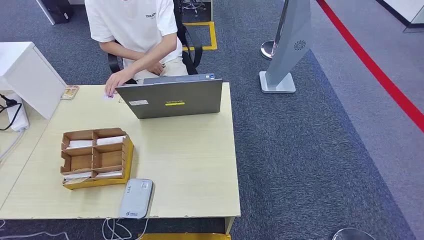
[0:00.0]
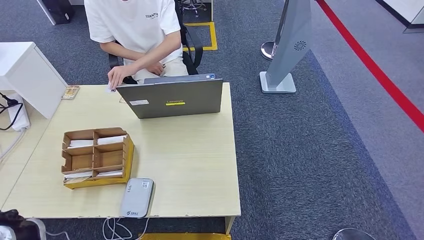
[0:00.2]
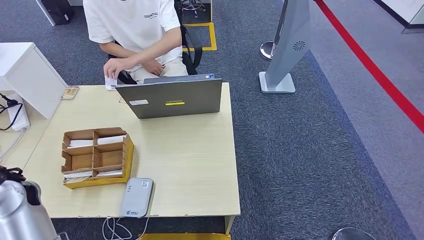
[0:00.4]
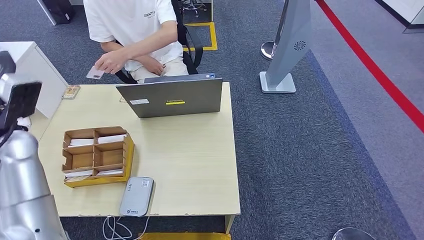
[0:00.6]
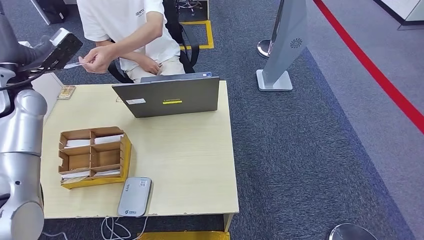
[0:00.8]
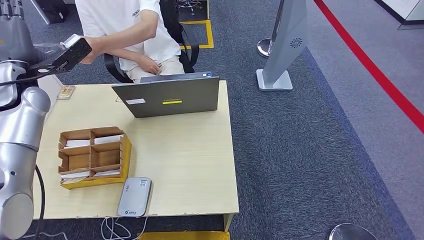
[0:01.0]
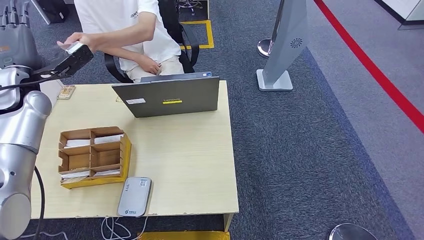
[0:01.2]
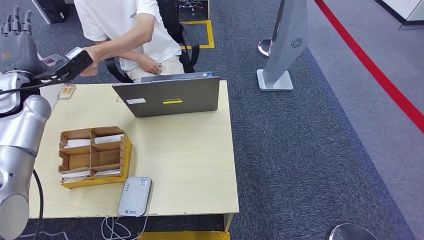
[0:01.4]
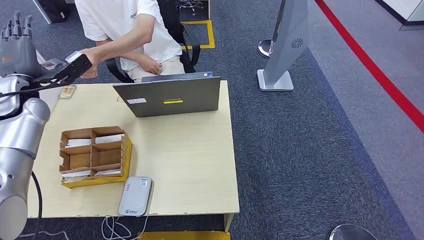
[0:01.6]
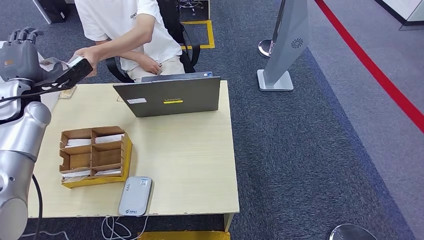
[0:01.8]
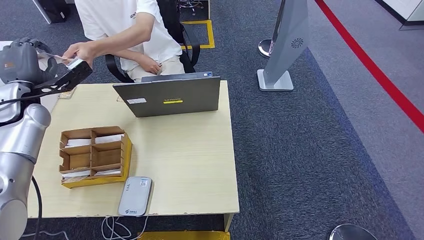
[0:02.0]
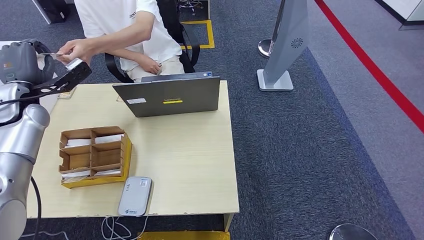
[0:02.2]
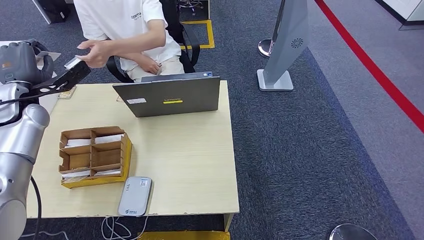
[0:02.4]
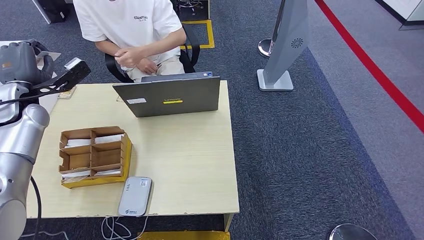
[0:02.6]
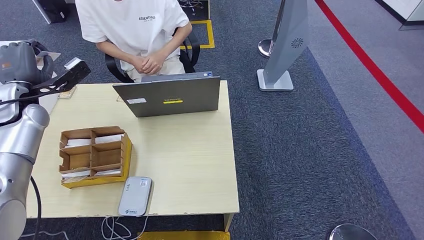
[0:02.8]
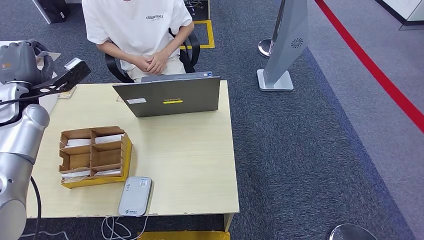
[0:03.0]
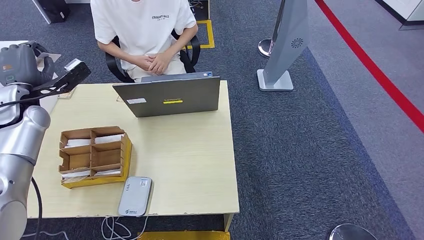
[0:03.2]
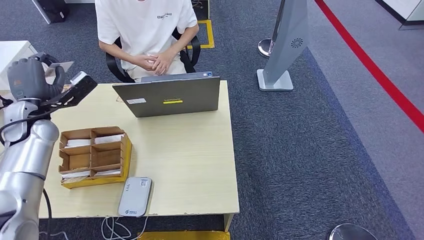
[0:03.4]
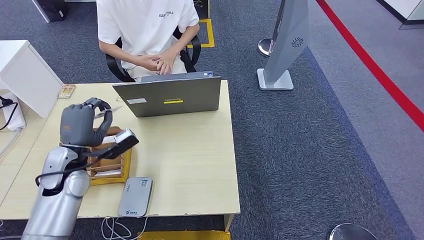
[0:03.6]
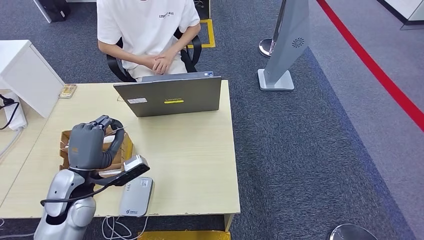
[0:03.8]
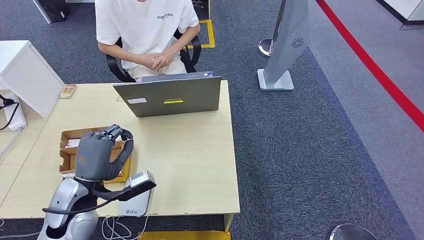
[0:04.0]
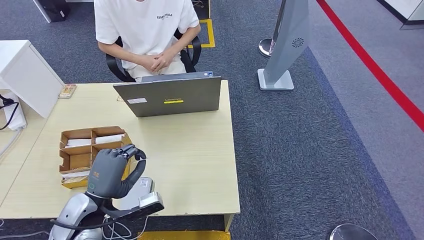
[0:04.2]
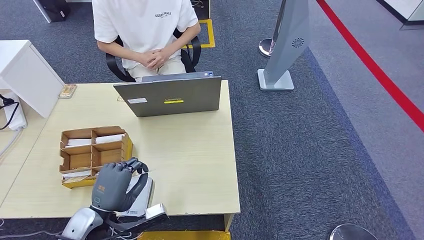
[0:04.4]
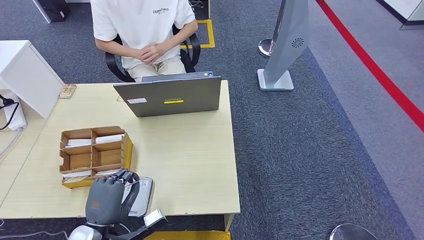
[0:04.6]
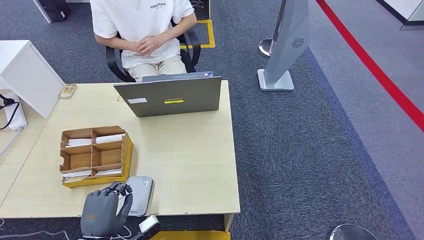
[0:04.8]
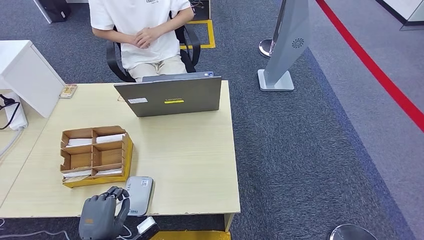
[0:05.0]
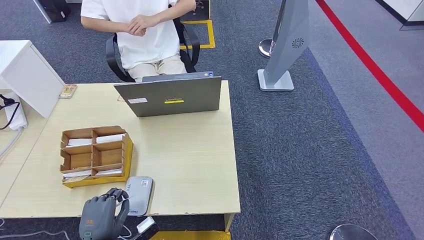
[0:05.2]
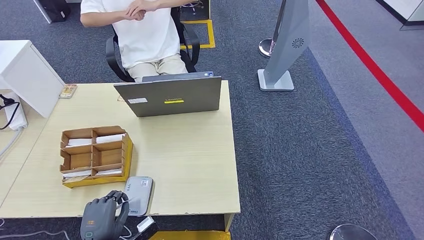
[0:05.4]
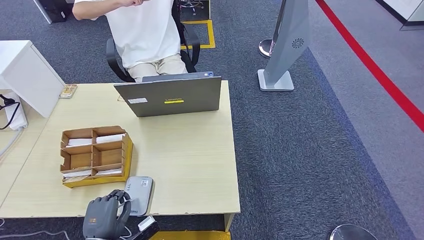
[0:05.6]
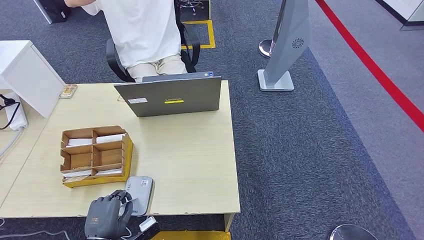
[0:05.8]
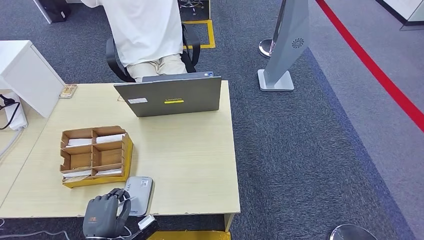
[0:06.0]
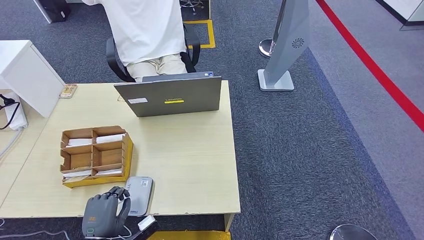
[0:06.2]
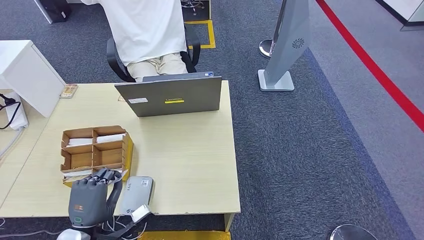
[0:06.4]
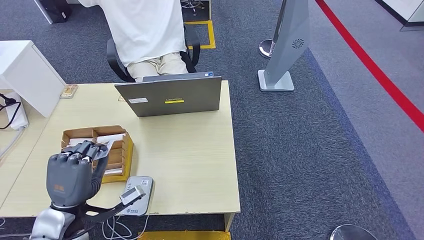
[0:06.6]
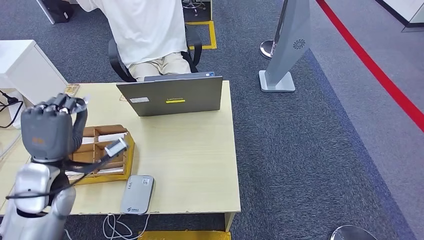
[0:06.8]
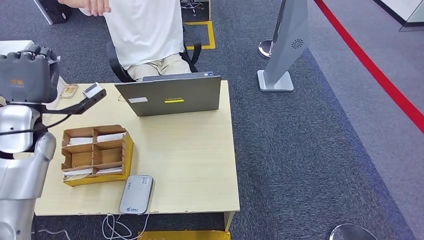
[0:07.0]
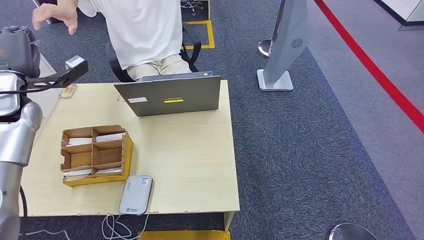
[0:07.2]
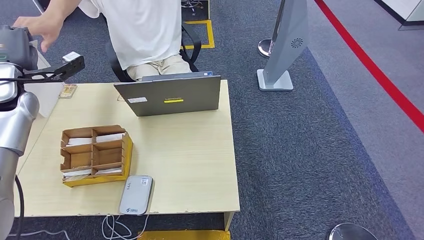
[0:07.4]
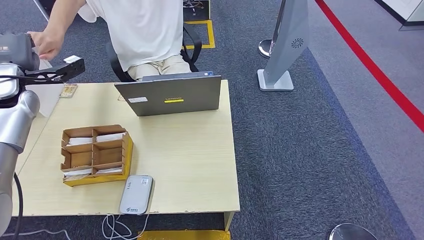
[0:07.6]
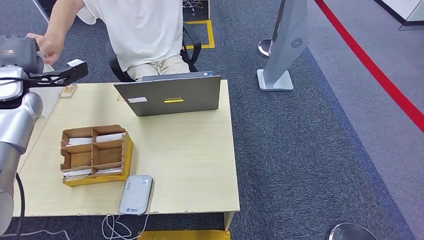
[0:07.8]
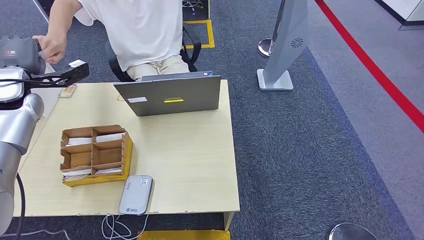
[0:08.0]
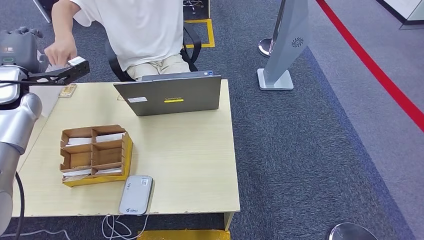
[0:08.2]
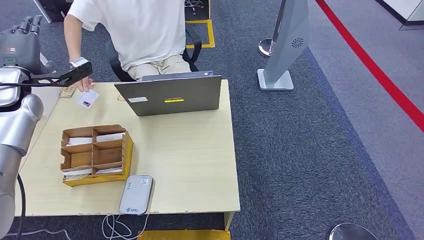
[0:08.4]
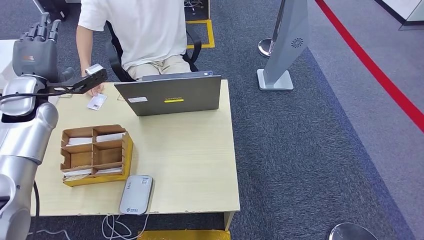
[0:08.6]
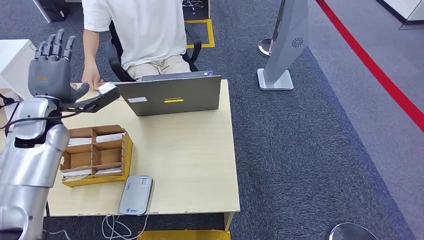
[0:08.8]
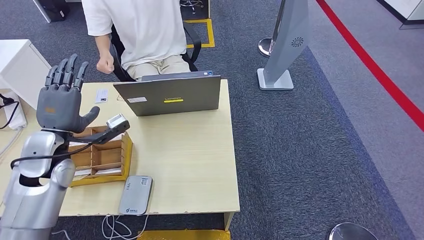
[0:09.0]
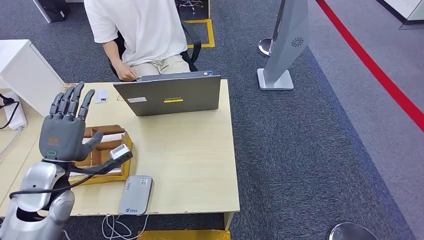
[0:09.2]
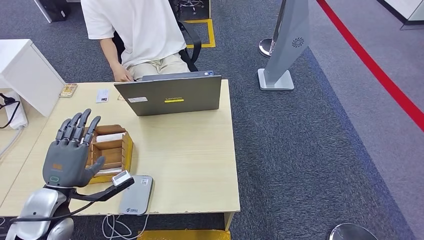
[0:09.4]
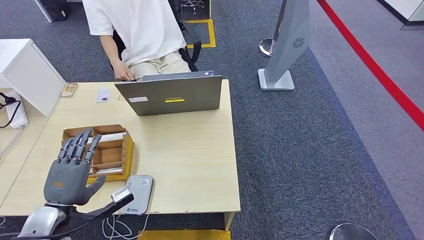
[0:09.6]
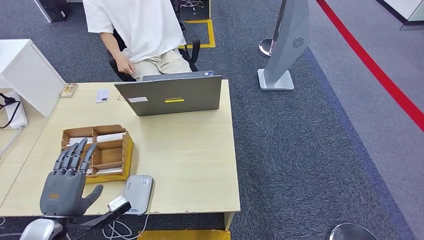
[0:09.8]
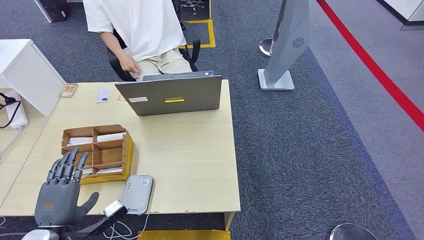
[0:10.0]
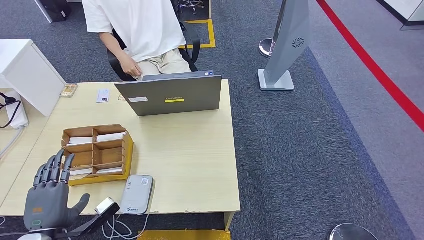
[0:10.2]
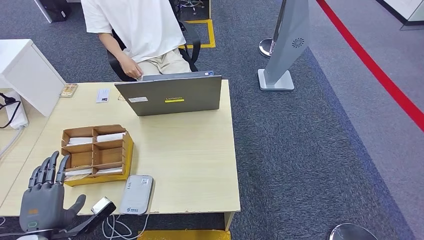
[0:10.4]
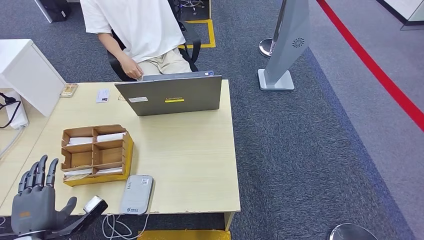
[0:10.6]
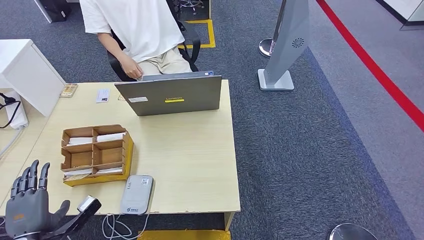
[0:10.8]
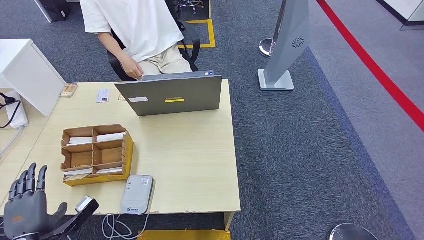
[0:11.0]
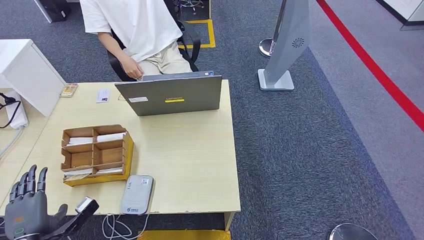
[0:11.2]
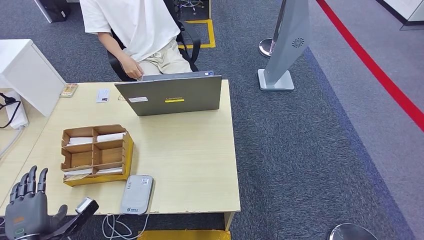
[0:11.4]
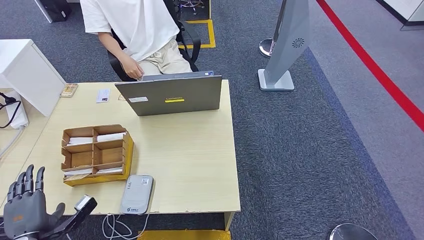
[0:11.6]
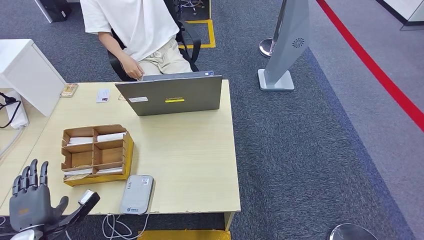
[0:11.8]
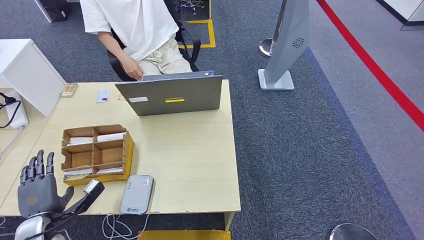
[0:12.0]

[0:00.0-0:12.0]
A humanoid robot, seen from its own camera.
Step, 0:00.0 to 0:03.0: Take the ID card from the person's hand.
Step, 0:03.2 to 0:06.6: Place the ID card on the card reader.
Step, 0:06.8 to 0:08.8: Hand the ID card to the person.
0:01.6 to 0:03.0: There are only small adjustments of the hands.
0:03.0 to 0:04.4: The left hand goes approximately 35 cm backward, downward and to the right.
0:04.4 to 0:06.0: The left hand moves downward and backward, some 10 cm.
0:06.0 to 0:07.6: The left hand is displaced forward and upward by about 40 cm.
0:07.6 to 0:09.0: The left hand is displaced backward, downward and to the right by about 15 cm.
0:09.0 to 0:10.4: The left hand heads backward and downward, covering approximately 25 cm.
0:10.4 to 0:12.0: The left hand goes roughly 5 cm downward and forward.

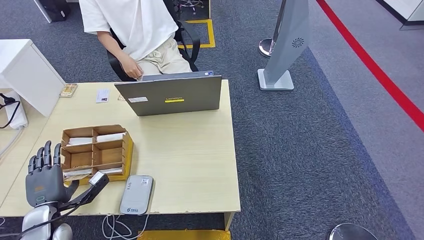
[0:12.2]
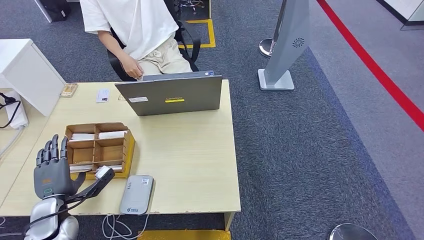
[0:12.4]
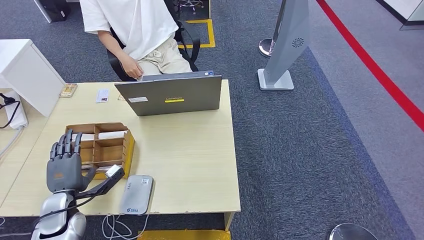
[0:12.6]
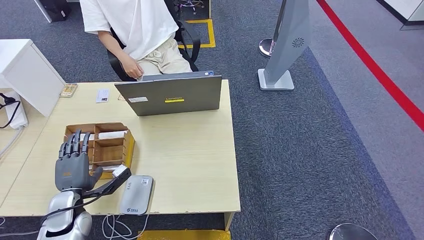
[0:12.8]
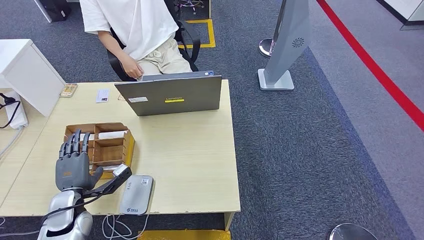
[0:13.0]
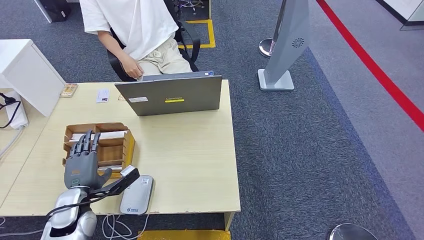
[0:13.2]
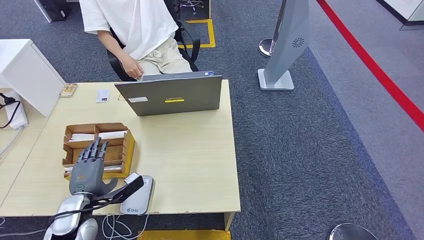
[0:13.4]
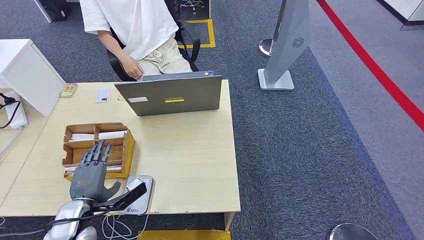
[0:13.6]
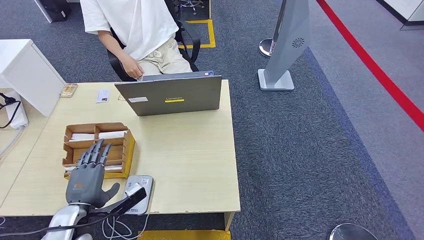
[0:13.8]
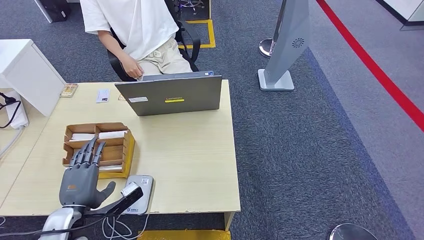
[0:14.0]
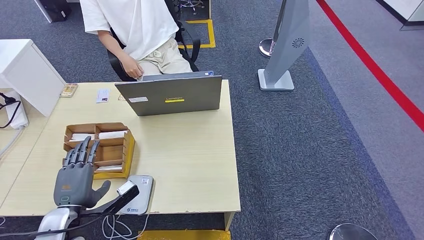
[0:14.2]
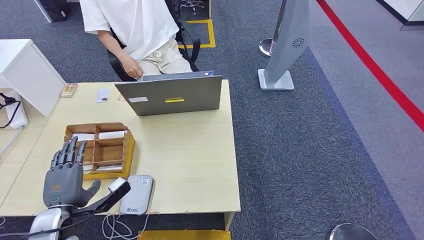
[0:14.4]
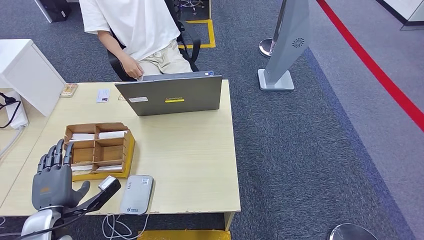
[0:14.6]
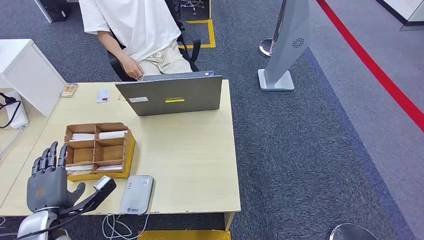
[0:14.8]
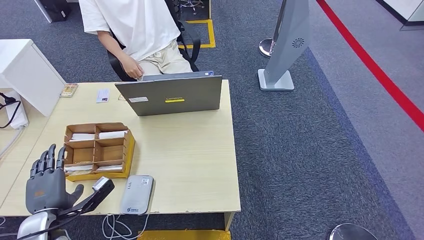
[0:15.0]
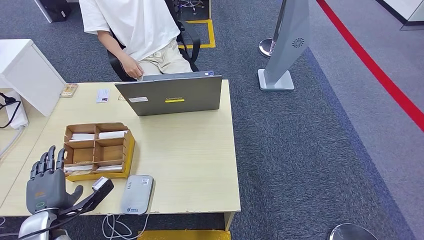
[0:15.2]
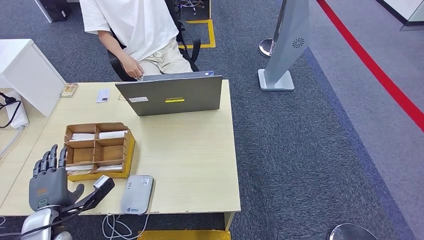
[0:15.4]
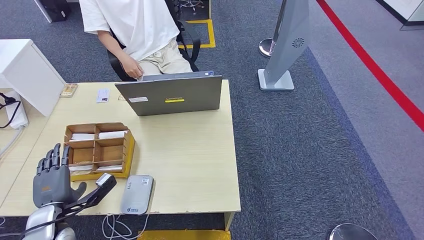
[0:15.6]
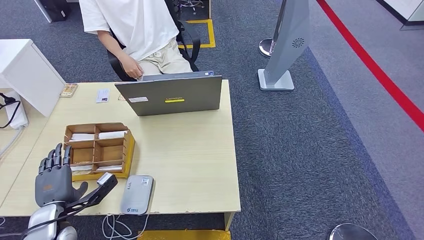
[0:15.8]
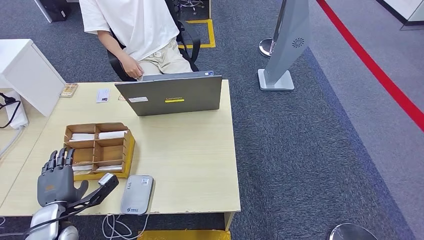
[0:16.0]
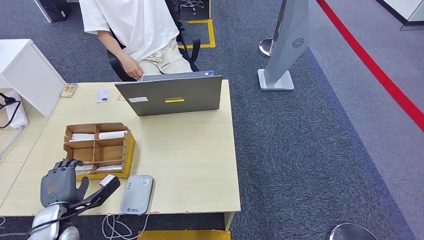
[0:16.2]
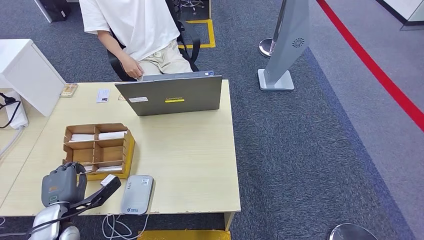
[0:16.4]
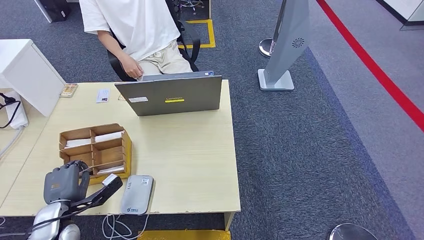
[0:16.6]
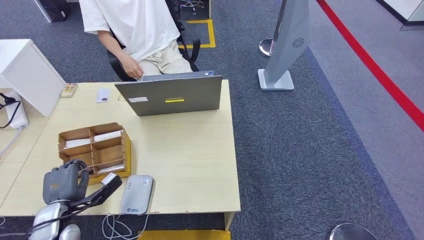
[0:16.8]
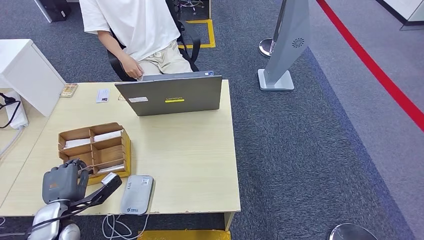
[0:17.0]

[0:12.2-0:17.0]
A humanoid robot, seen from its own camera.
Step, 0:12.2 to 0:16.8: Pick up the room key from the key card box.
0:12.2 to 0:13.8: The left hand goes some 10 cm to the right.
0:13.8 to 0:15.4: The left hand heads to the left, covering about 5 cm.
0:15.4 to 0:17.0: The hands move only a little.
